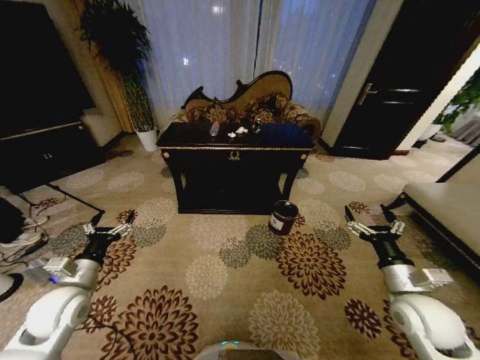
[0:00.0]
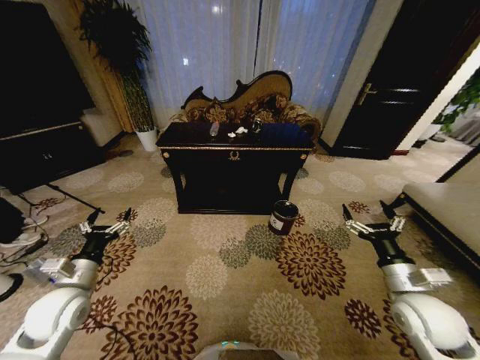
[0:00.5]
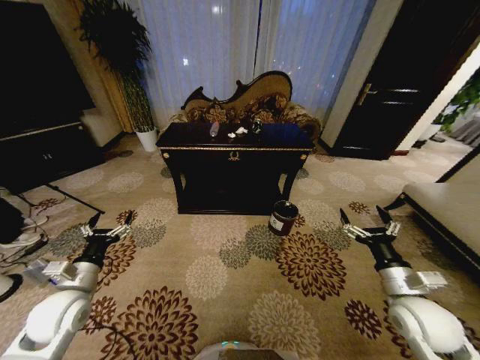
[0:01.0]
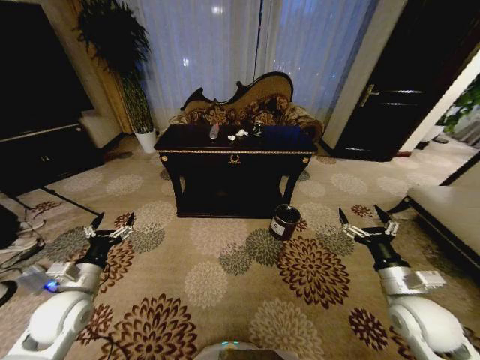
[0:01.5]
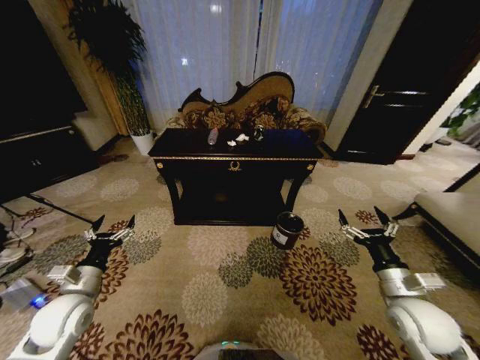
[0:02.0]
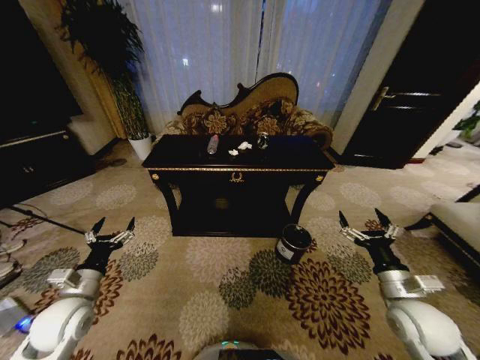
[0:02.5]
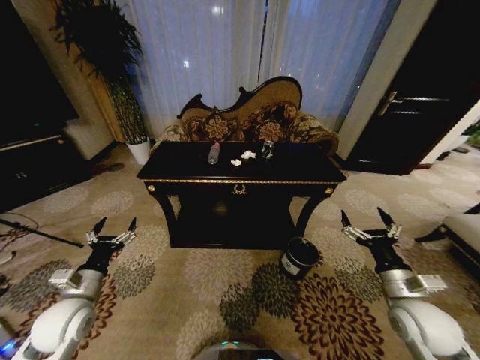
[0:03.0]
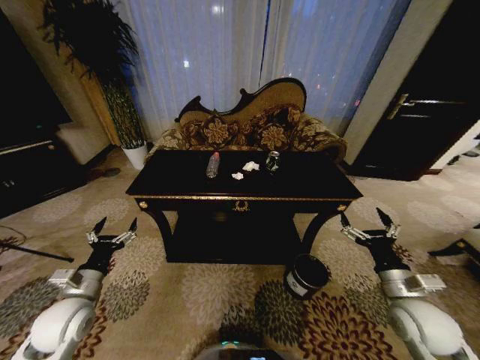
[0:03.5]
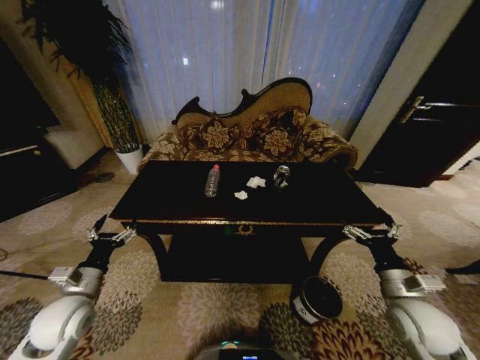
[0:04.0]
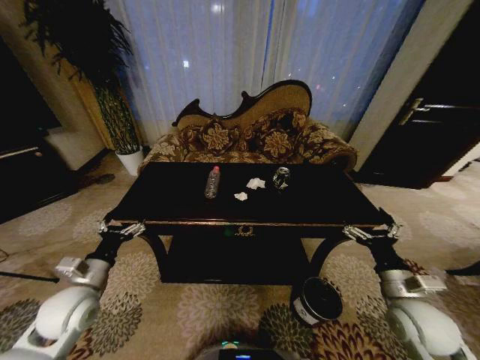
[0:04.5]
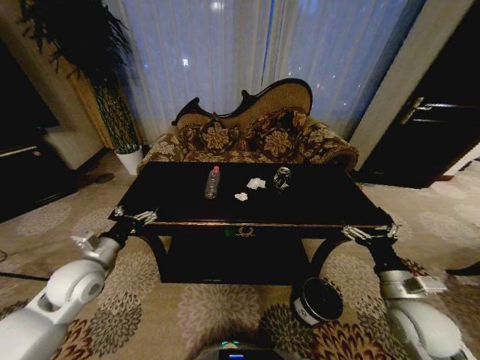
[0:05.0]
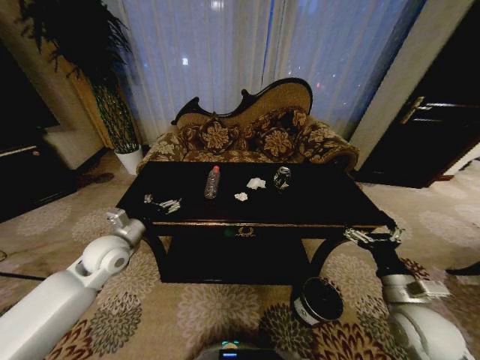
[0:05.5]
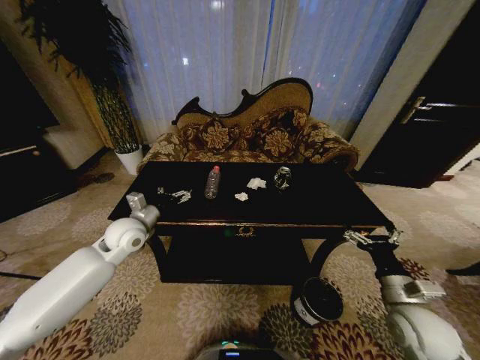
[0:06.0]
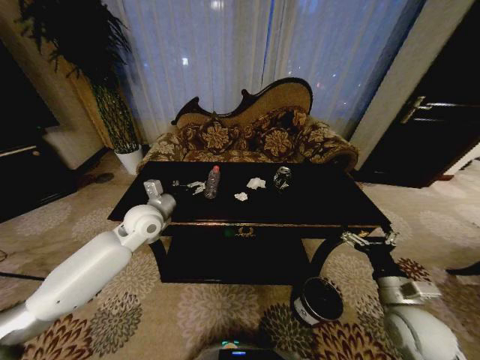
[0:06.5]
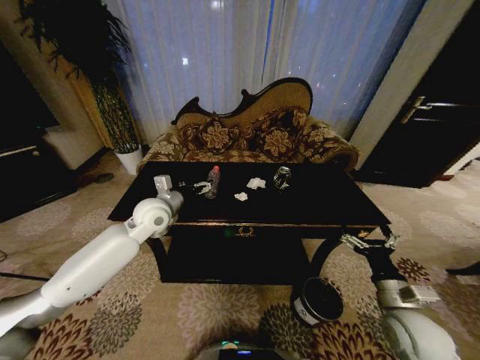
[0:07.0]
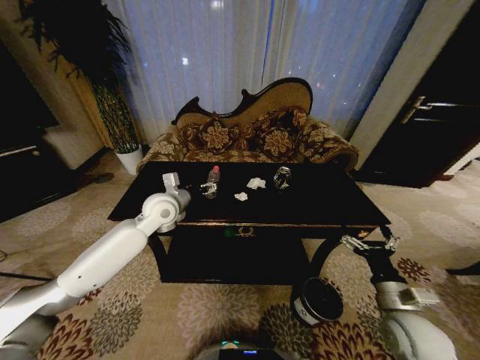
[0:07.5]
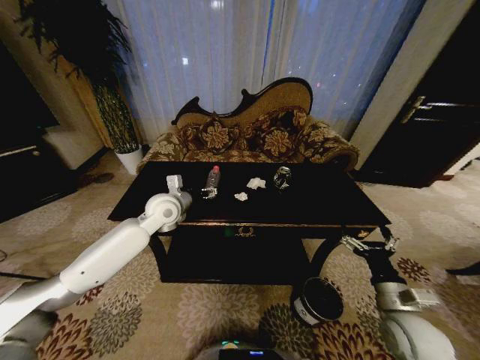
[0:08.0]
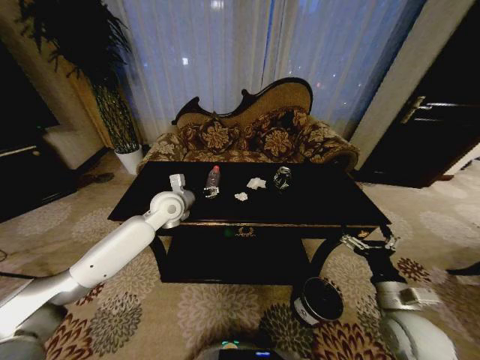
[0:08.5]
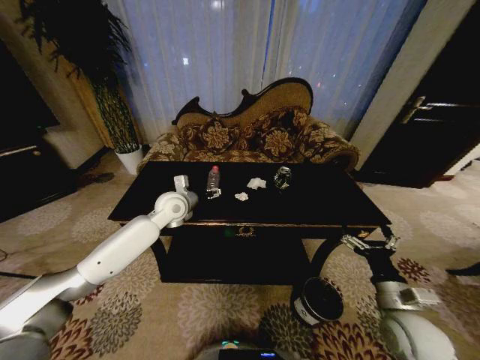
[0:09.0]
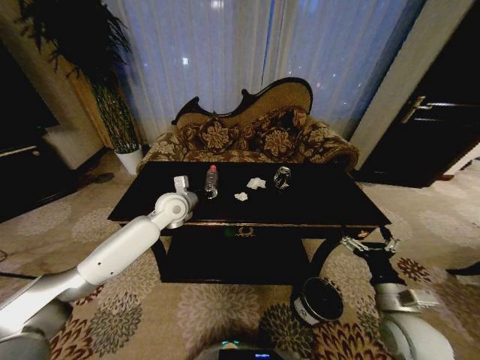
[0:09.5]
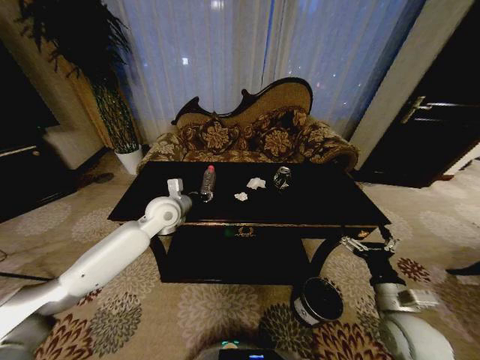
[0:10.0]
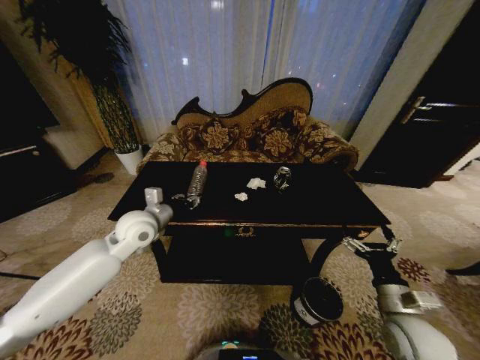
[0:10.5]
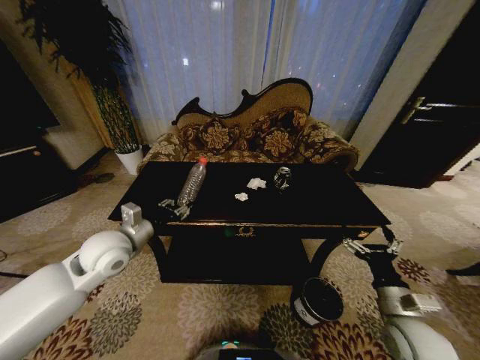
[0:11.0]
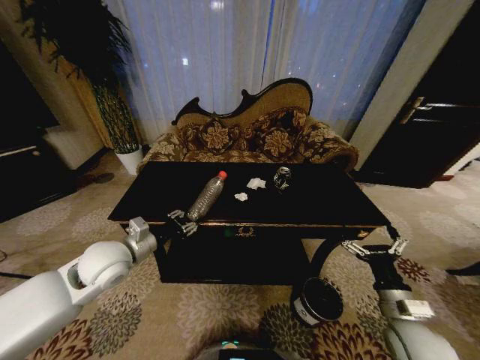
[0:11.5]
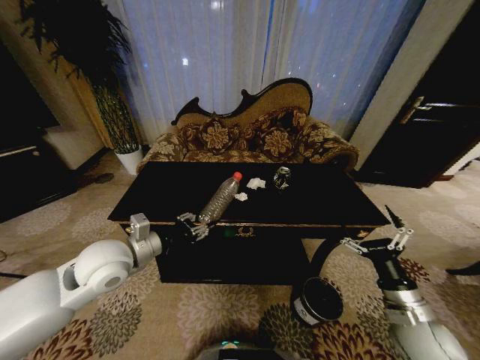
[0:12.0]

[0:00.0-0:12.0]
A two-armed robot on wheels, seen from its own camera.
Task of the whole recording: Move to the front of the table and place the trash on the table into the trash bin.
0:04.0 to 0:06.0: The left gripper travels forward, to the right and upward by approximately 20 cm.
0:06.0 to 0:08.0: The left gripper goes approximately 10 cm to the right and forward.
0:08.0 to 0:10.0: The left gripper closes its fingers.
0:10.0 to 0:12.0: The left gripper heads backward, covering roughly 15 cm.

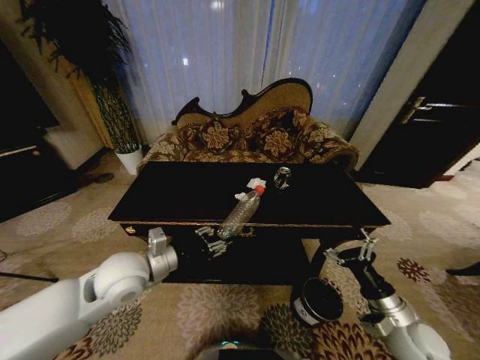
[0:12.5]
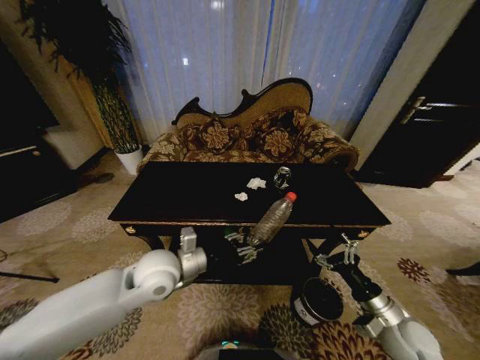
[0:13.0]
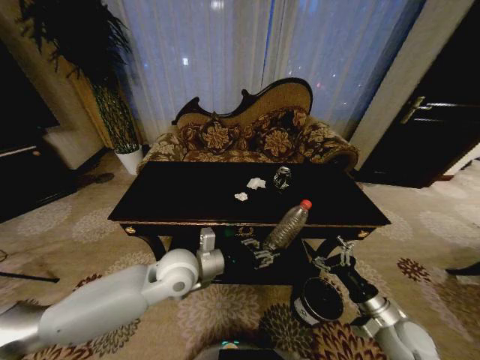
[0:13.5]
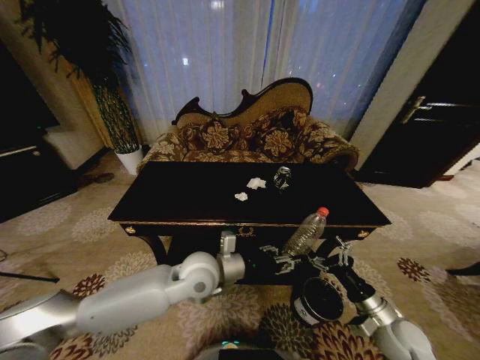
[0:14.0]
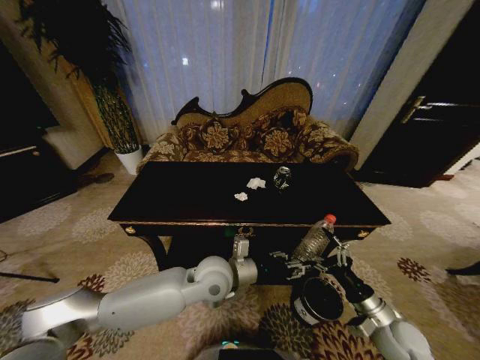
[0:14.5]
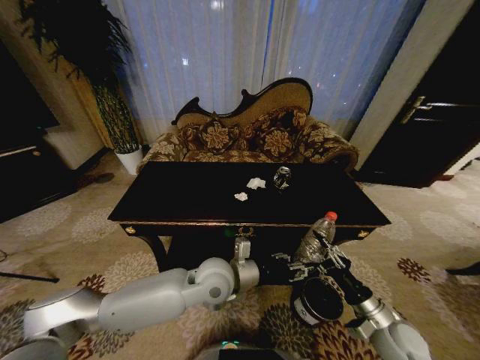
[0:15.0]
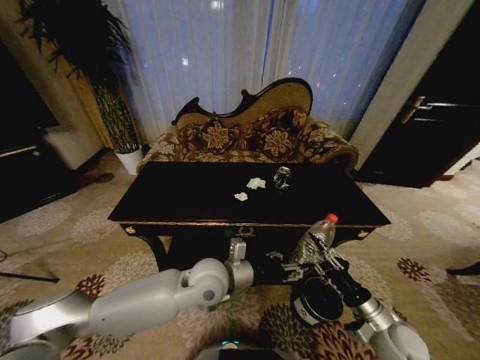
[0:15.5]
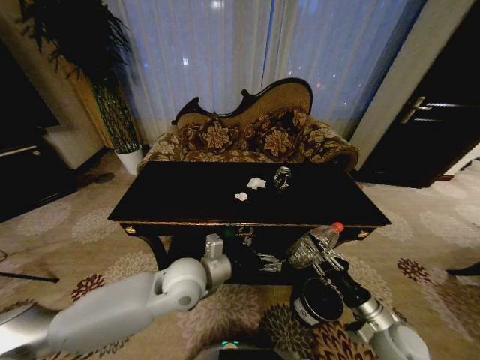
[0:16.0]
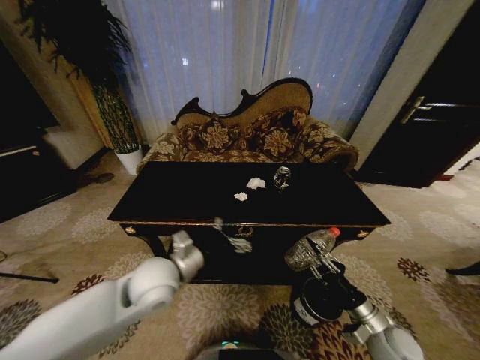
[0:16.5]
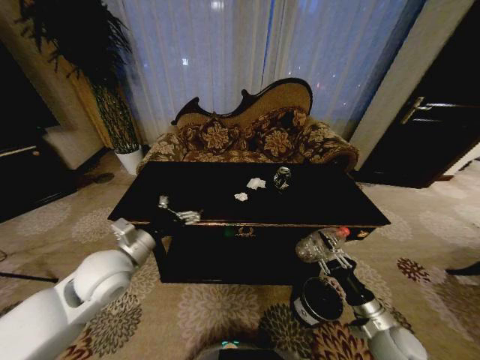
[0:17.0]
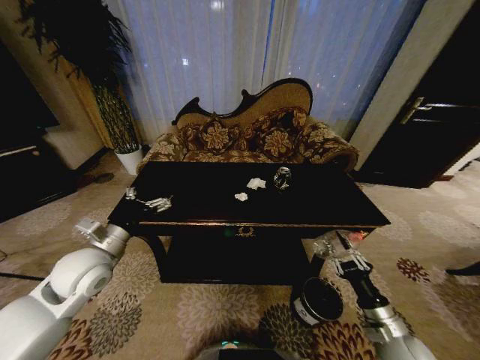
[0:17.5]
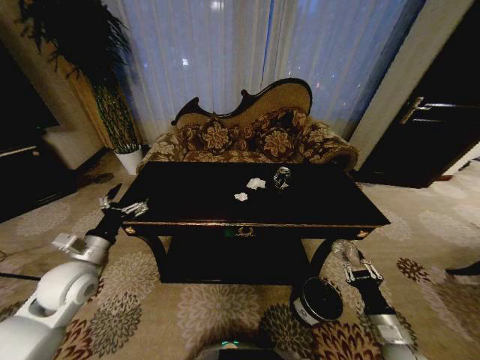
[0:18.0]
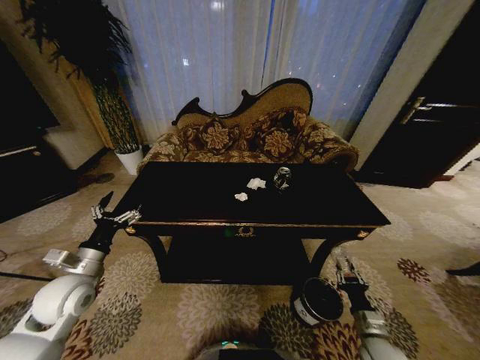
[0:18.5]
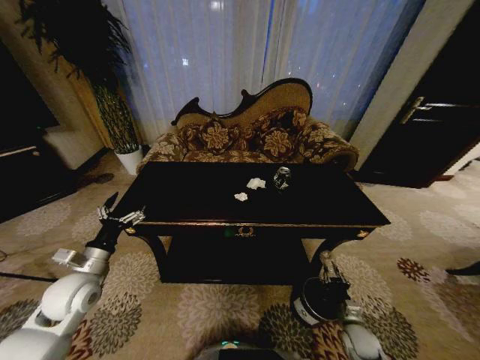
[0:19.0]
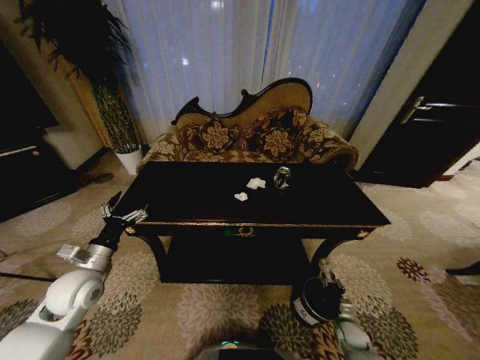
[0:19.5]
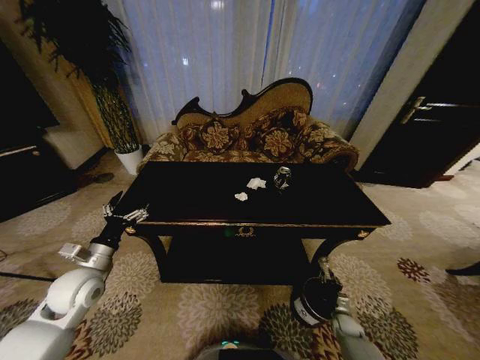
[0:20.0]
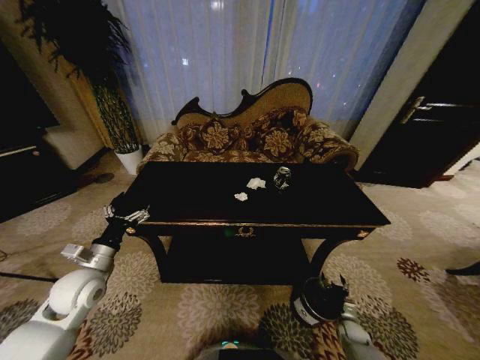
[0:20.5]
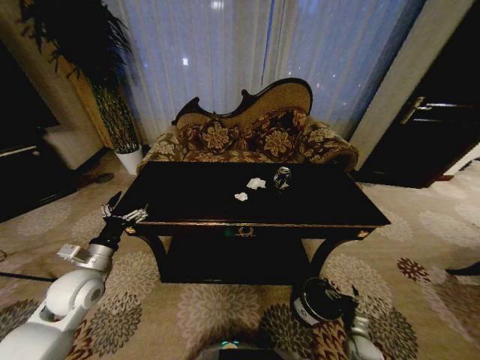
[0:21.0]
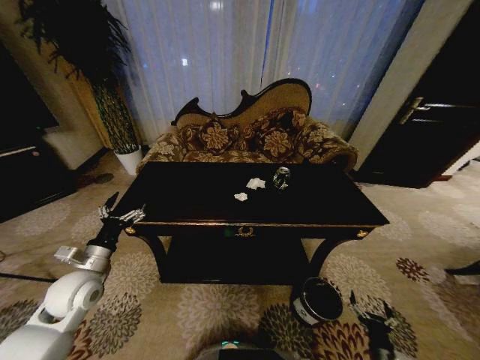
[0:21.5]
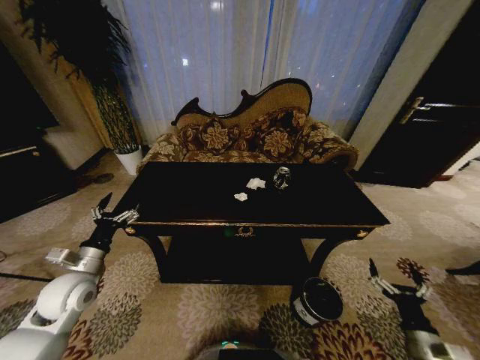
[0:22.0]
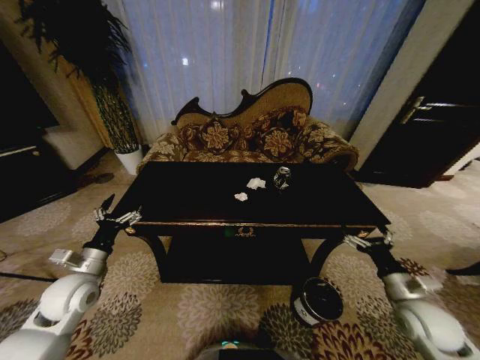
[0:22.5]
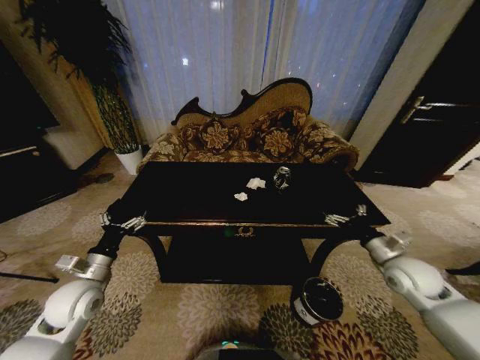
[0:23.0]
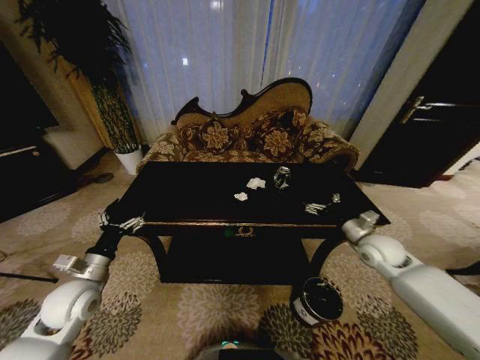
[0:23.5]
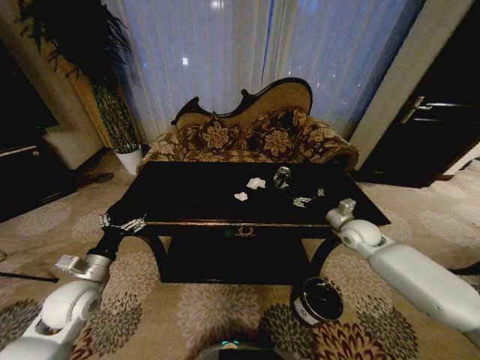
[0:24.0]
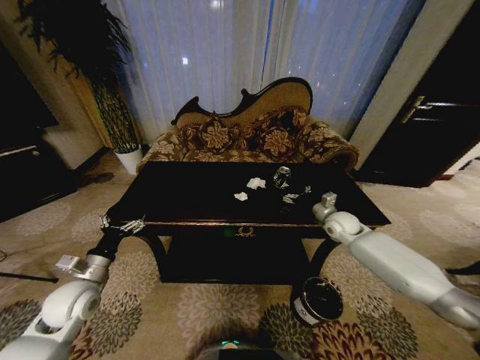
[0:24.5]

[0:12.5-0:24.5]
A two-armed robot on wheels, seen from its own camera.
Task of the whole recording: Move to the front of the table and place the trash on the table into the trash bin.
0:12.5 to 0:14.5: The left gripper travels to the right by roughly 20 cm.
0:14.5 to 0:16.5: The right gripper closes up. Meanwhile the left gripper shifts roughly 10 cm to the left, and opens its fingers.
0:16.5 to 0:18.5: The left gripper is displaced to the left by approximately 20 cm. Meanwhile the right gripper shifts about 5 cm downward.
0:18.5 to 0:20.5: The right gripper is displaced downward by some 20 cm, and opens up.
0:20.5 to 0:22.5: The right gripper goes approximately 30 cm upward.
0:22.5 to 0:24.5: The right gripper is displaced forward by approximately 25 cm.

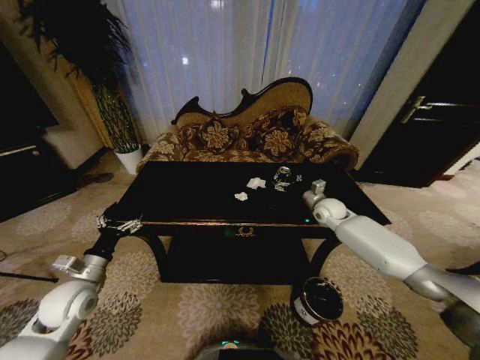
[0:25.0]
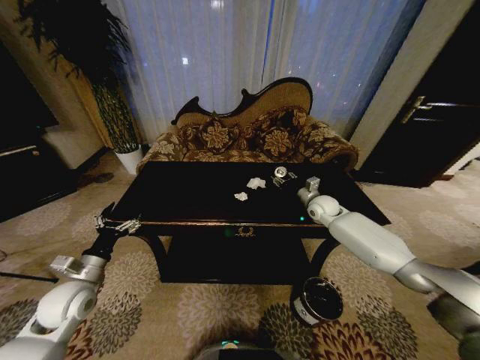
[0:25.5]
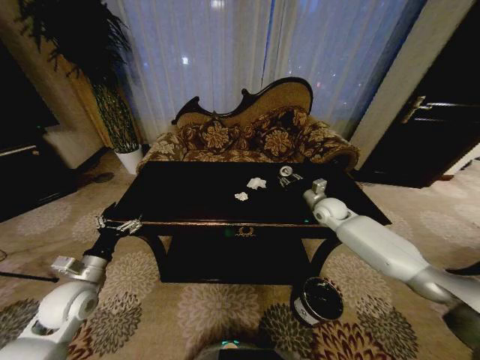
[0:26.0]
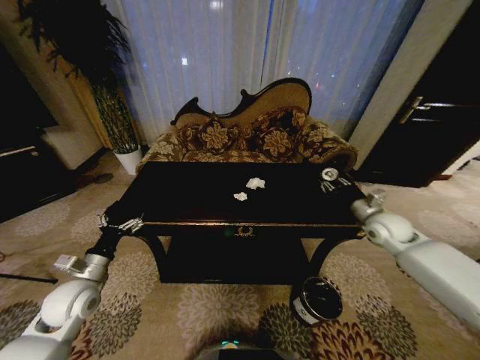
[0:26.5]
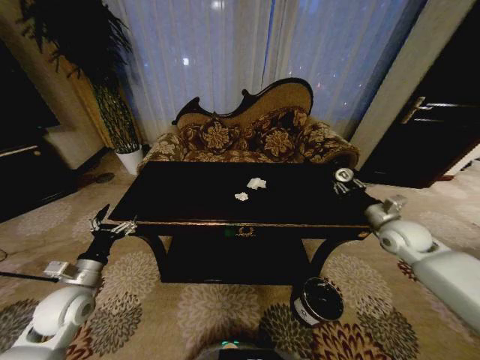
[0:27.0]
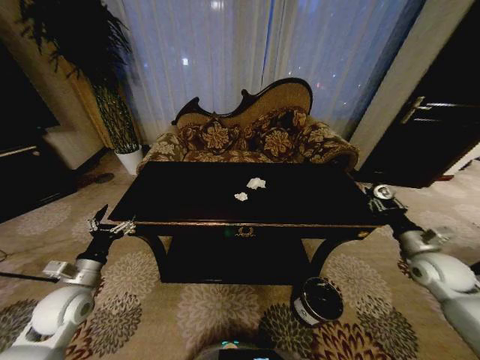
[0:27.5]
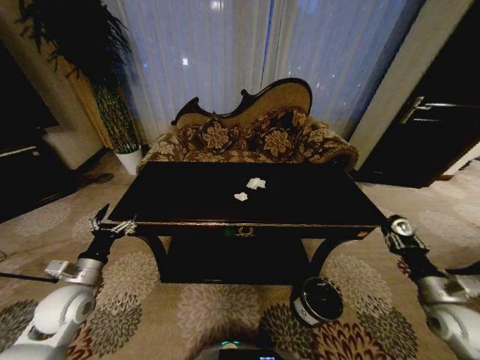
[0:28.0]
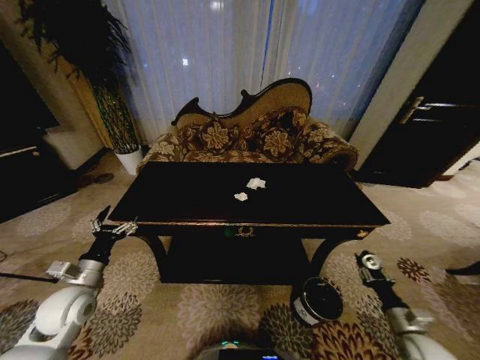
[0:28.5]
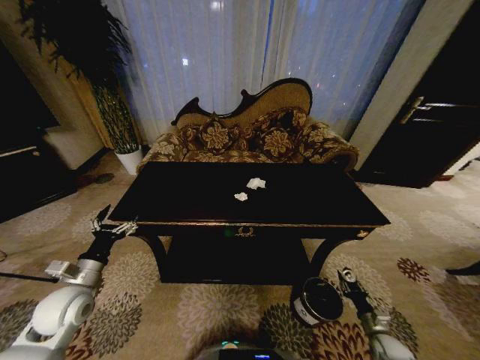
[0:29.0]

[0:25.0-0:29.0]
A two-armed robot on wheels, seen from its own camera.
Task of the whole recording: Move to the front of the table and place the trash on the table into the trash bin.
0:25.0 to 0:27.0: The right gripper is displaced backward and to the right by roughly 20 cm, and closes its fingers.
0:27.0 to 0:29.0: The right gripper heads downward and backward, covering roughly 40 cm.
